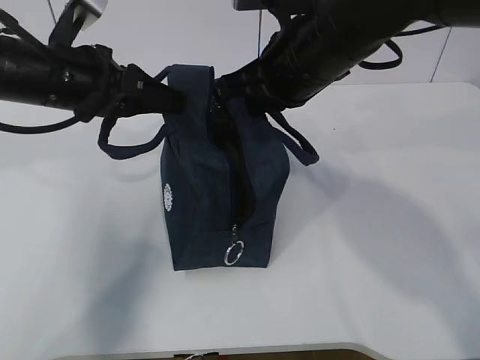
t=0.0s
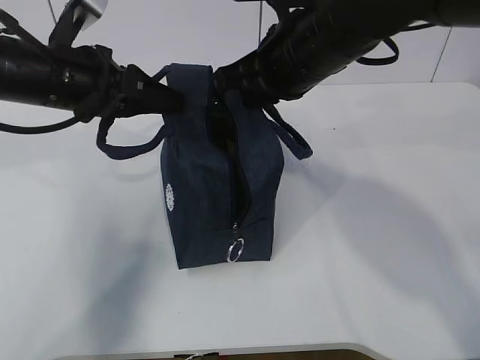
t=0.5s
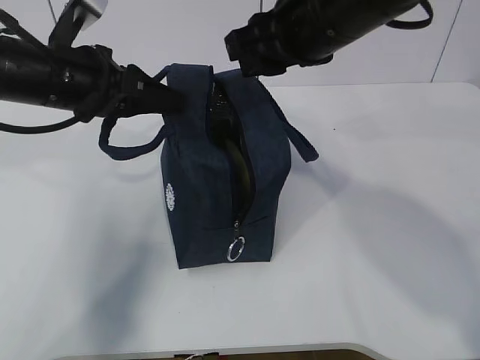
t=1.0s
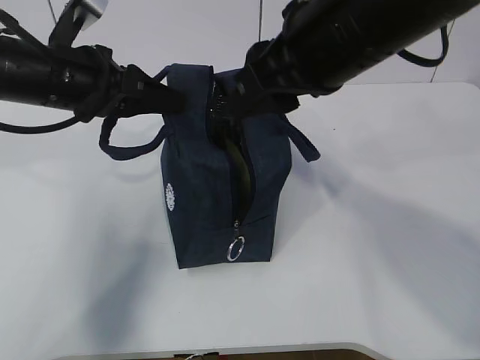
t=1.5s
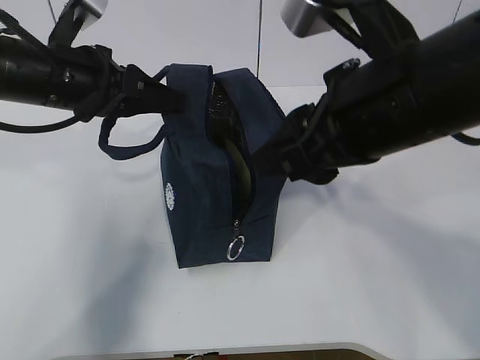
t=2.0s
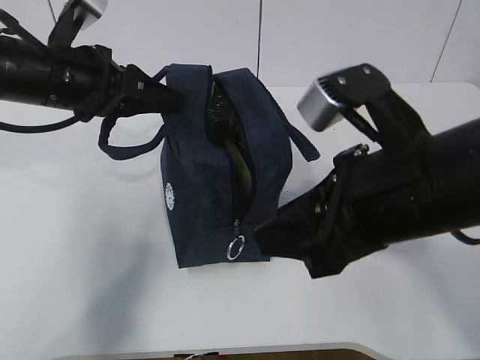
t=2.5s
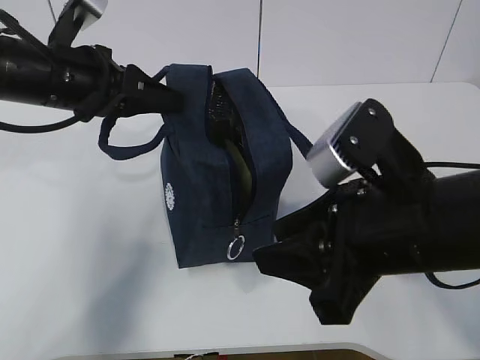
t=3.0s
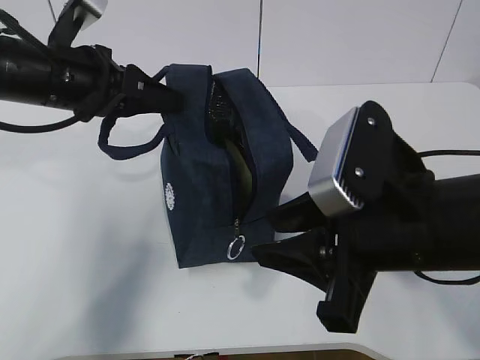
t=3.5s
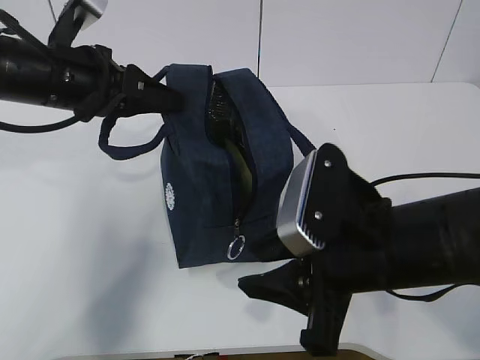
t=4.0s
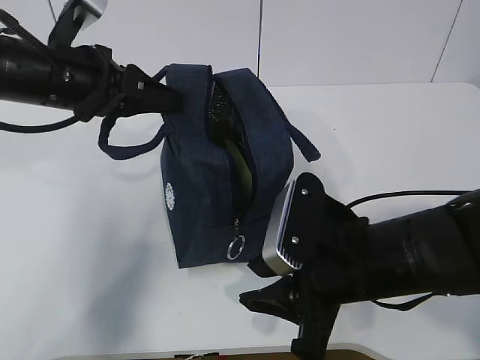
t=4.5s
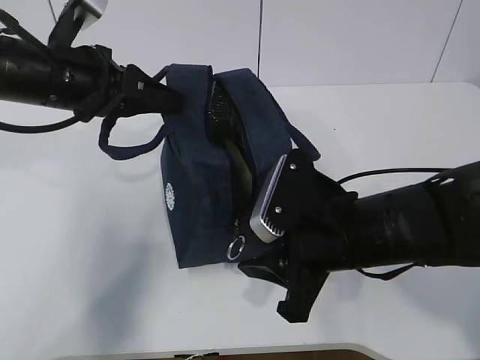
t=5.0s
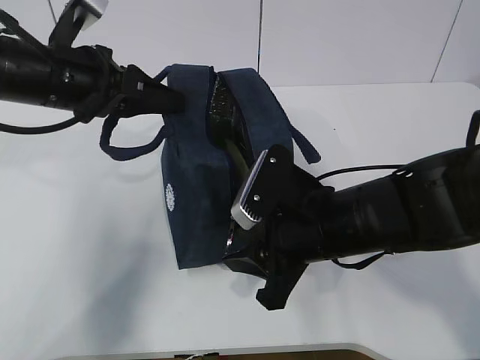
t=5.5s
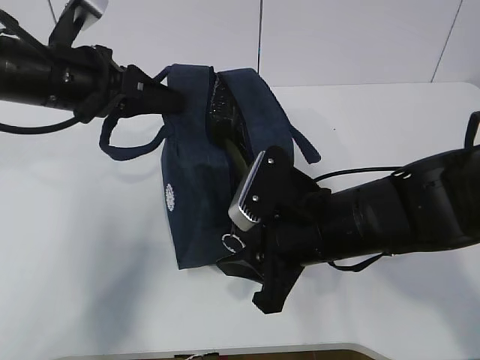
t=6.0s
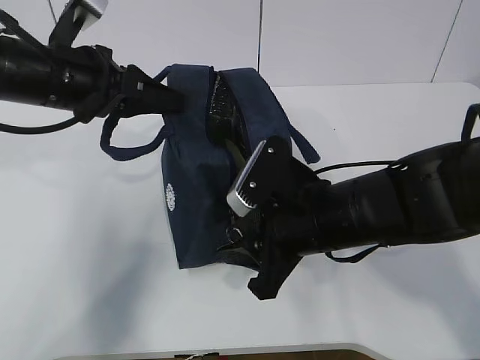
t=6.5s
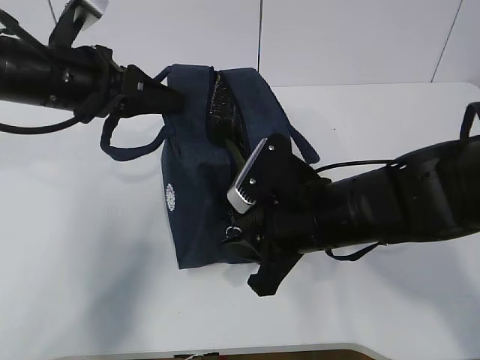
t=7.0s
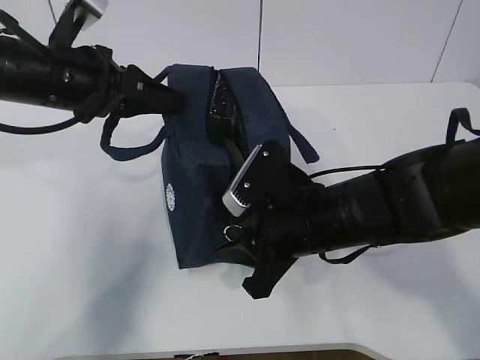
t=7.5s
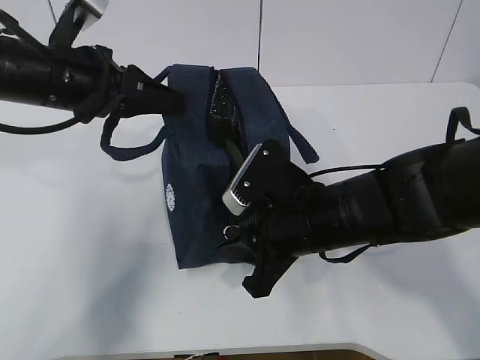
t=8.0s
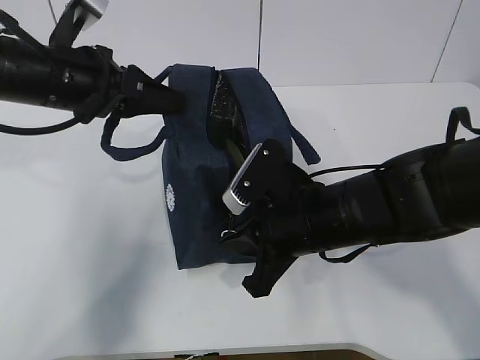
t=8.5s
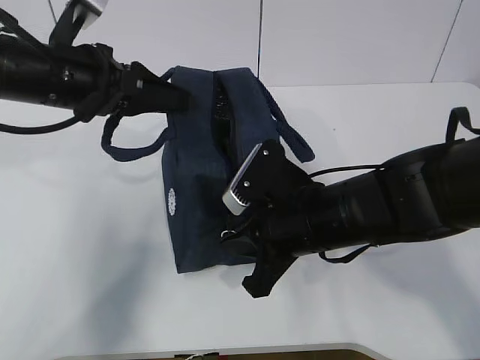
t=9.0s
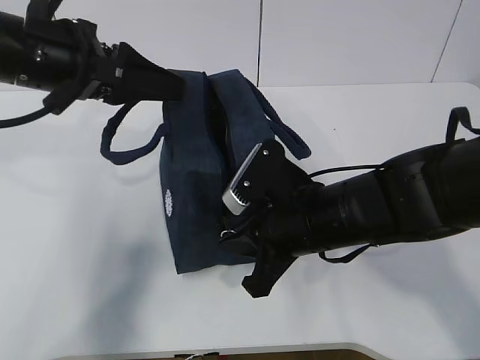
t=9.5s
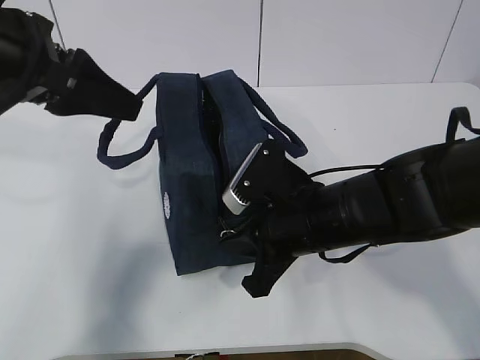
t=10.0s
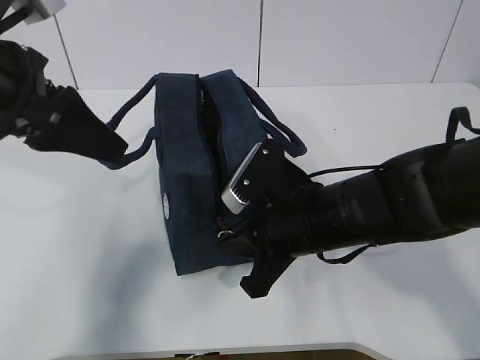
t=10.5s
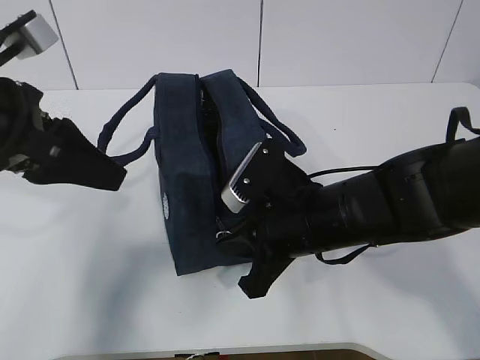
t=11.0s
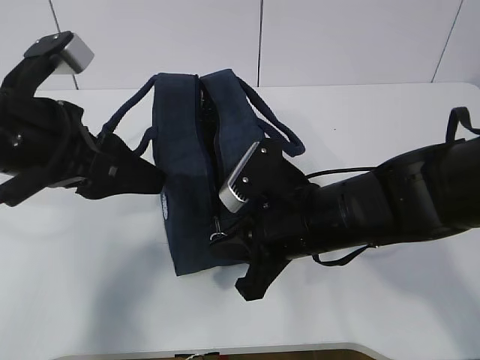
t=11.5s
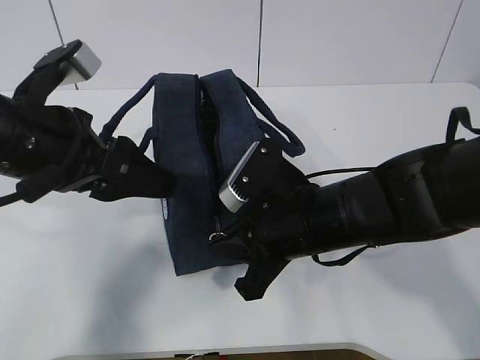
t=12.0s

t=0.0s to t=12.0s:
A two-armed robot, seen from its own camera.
t=0.0s to t=2.0s: The right gripper shifts some 10 cm backward, and opens its fingers.
t=2.0s to t=4.0s: The right gripper is displaced downward by some 10 cm.
t=4.0s to t=6.0s: The right gripper heads forward, covering roughly 5 cm.
t=6.0s to t=8.0s: There are only small adjustments of the grippers.
t=8.0s to t=10.0s: The left gripper shifts approximately 10 cm upward and backward, and opens up.
t=10.0s to t=12.0s: The left gripper travels downward by roughly 5 cm.

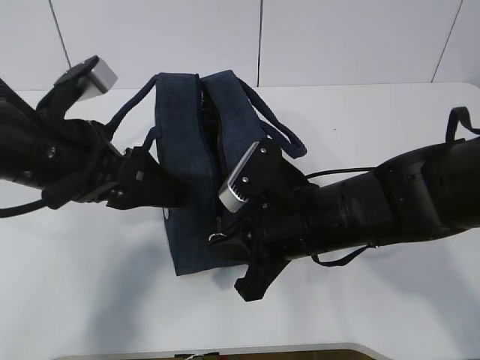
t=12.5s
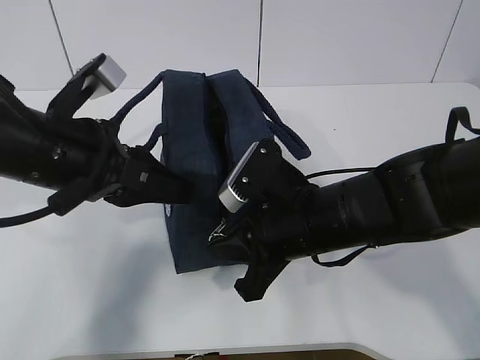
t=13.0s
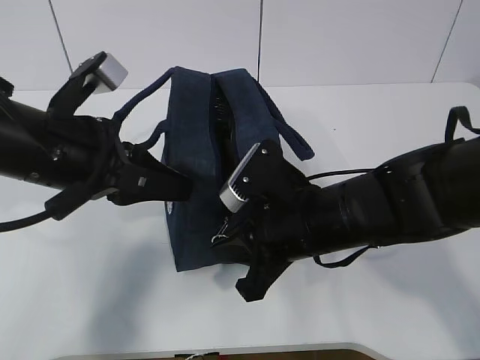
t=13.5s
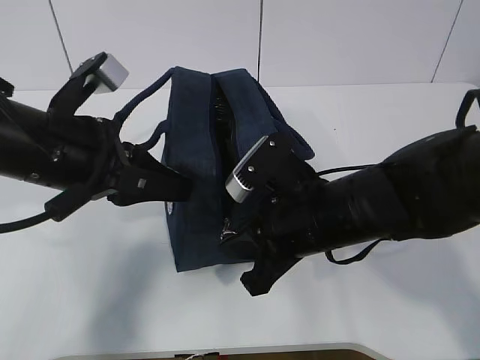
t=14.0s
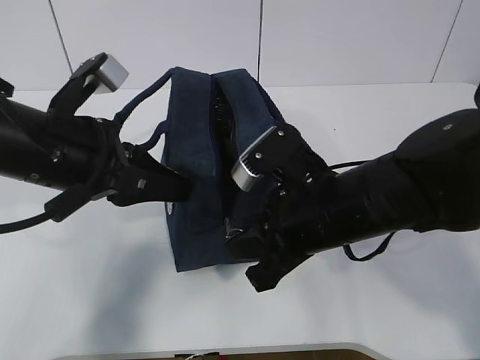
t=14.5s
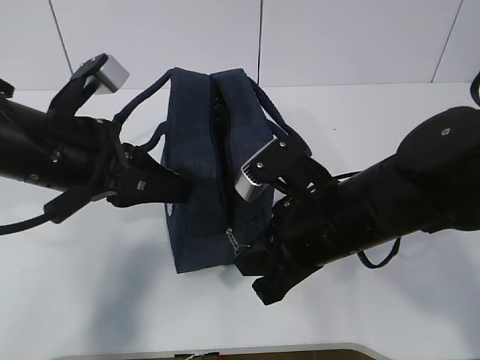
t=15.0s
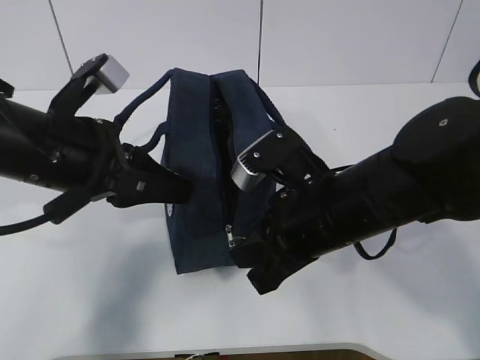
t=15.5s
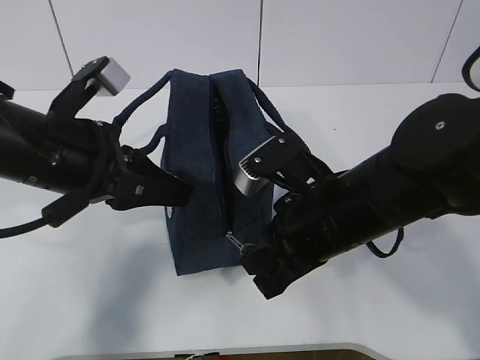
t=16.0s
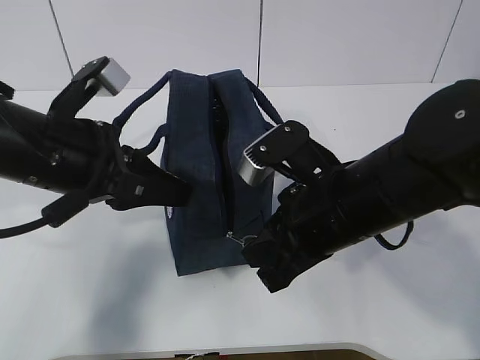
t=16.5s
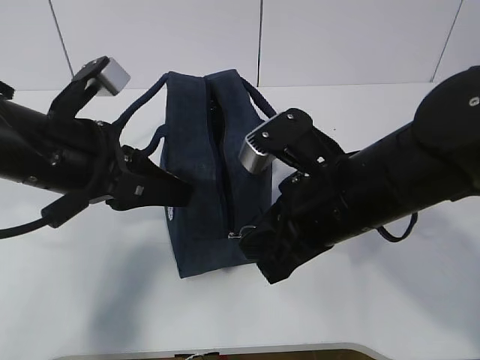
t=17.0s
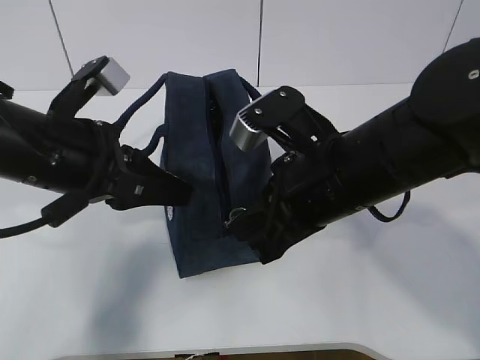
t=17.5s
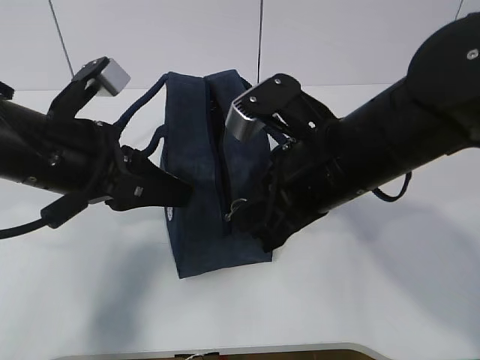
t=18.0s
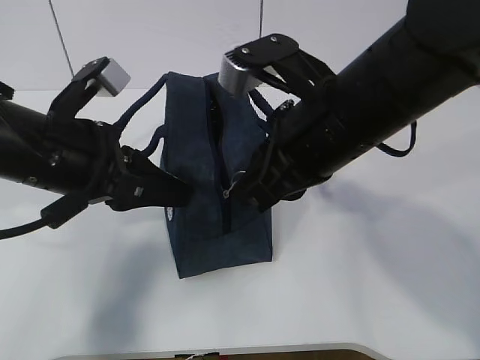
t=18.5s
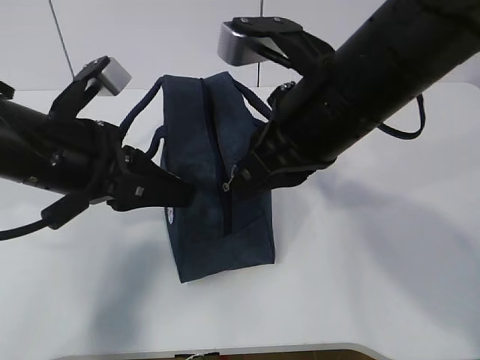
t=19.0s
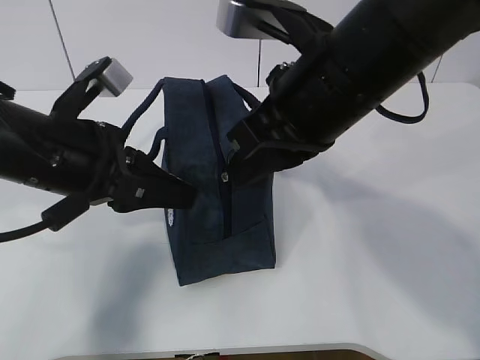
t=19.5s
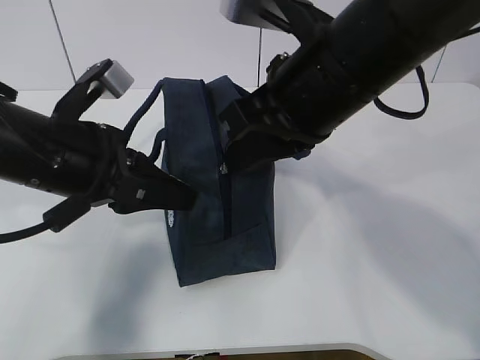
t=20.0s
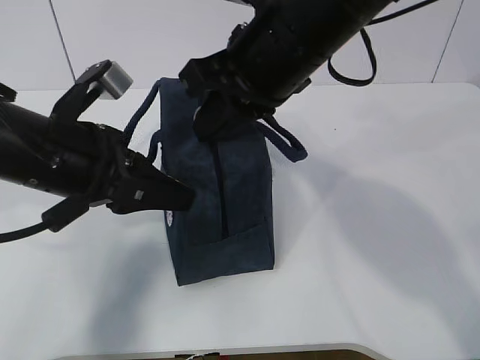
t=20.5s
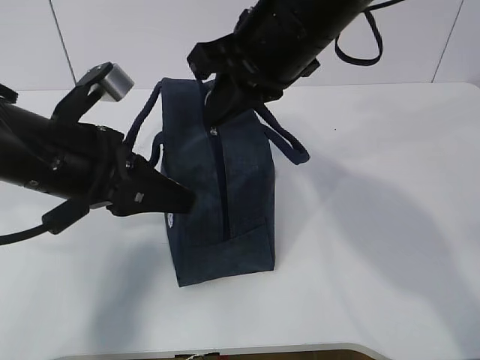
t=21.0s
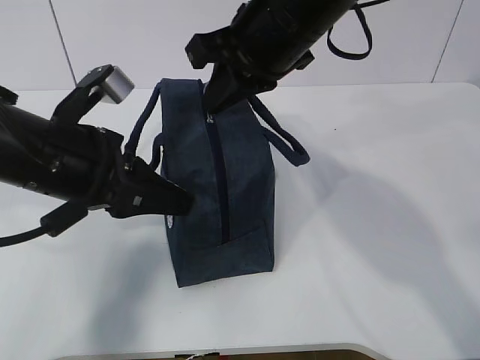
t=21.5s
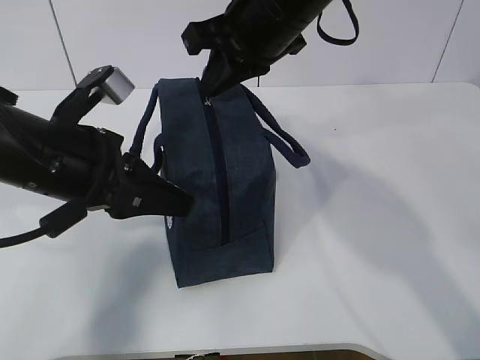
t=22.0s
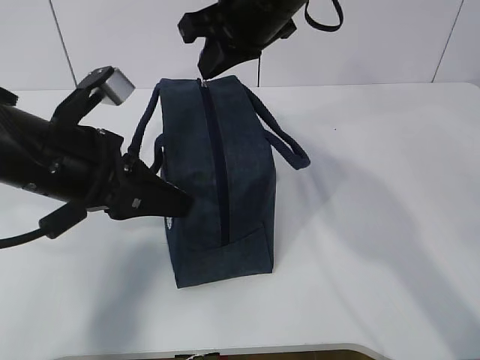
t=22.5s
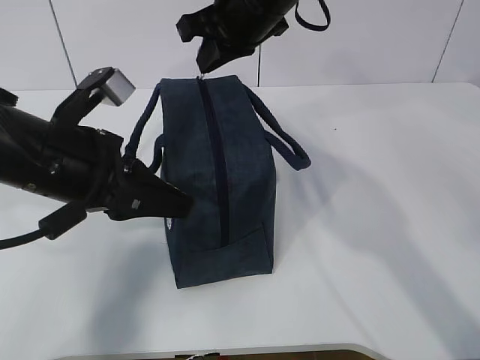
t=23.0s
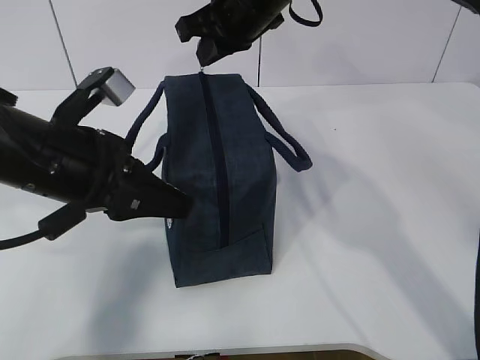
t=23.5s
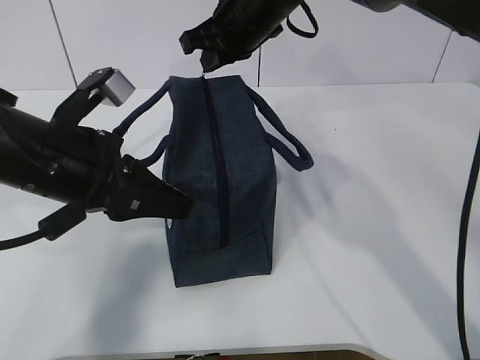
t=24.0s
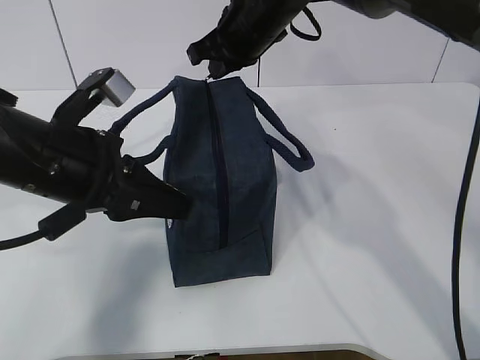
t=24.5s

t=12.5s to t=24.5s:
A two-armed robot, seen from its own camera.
Step, t=13.5s to t=20.0s: Pull the zipper with your right hand.
t=12.5s to t=14.5s: The left gripper closes its fingers.
t=14.5s to t=16.5s: The grippers move only a little.
t=16.5s to t=18.5s: The right gripper shifts approximately 10 cm upward.
t=18.5s to t=20.5s: The right gripper shifts by approximately 5 cm.
t=20.5s to t=22.5s: The right gripper heads forward, covering about 10 cm.
t=22.5s to t=24.5s: The right gripper moves forward, approximately 5 cm.

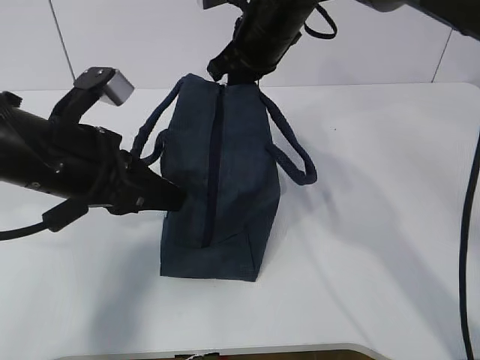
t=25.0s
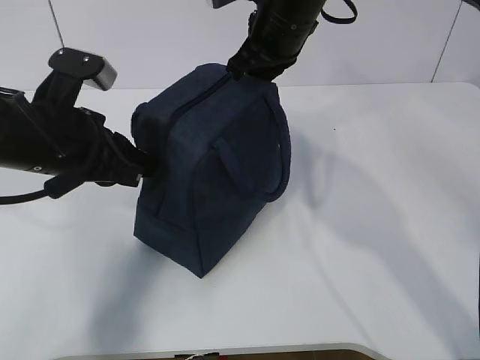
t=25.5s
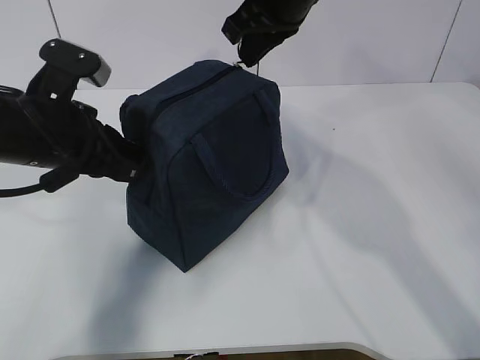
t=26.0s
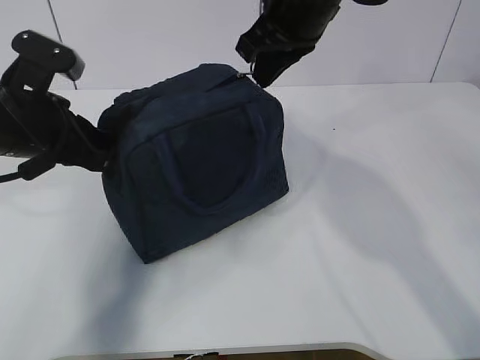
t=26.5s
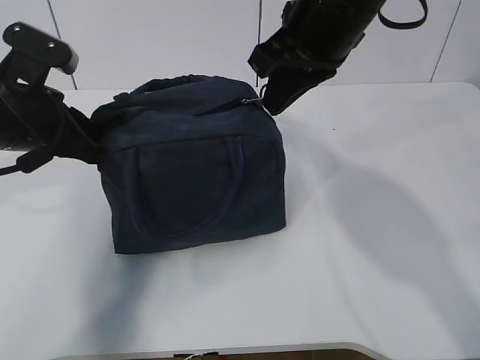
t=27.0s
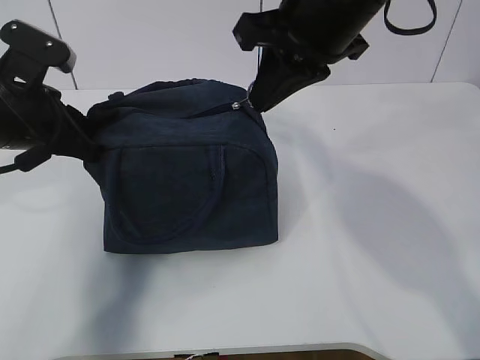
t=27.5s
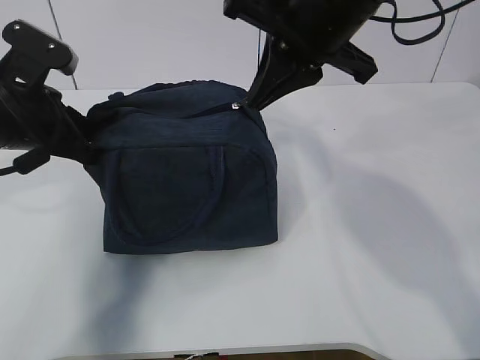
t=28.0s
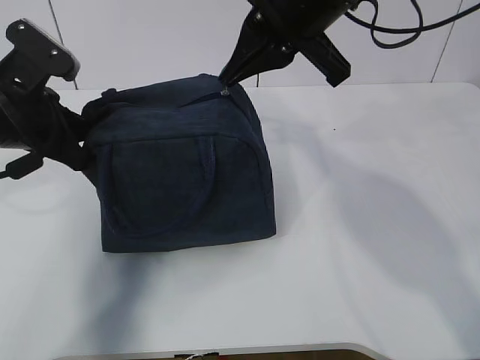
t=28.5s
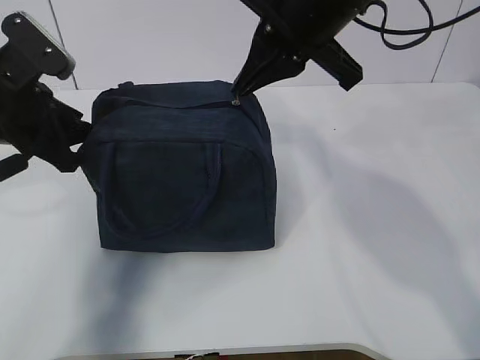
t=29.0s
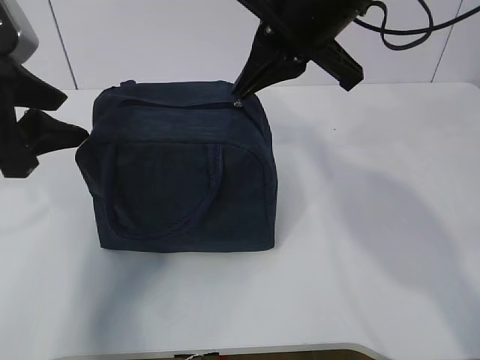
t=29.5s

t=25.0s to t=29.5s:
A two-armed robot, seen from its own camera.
t=25.0s to t=27.0s: The left gripper goes roughly 5 cm to the left. The right gripper travels backward and upward by roughly 15 cm.
t=27.0s to t=29.5s: The left gripper is displaced upward and backward by approximately 10 cm, and opens up.
